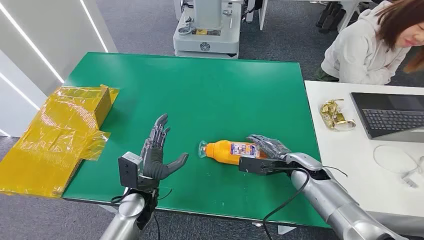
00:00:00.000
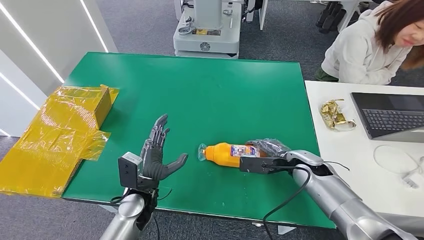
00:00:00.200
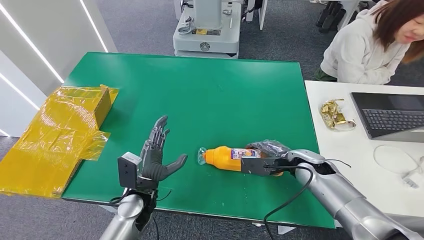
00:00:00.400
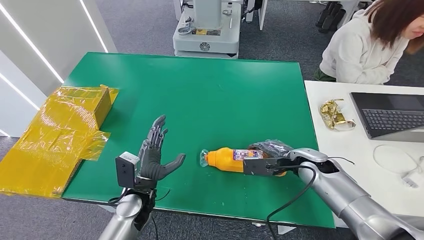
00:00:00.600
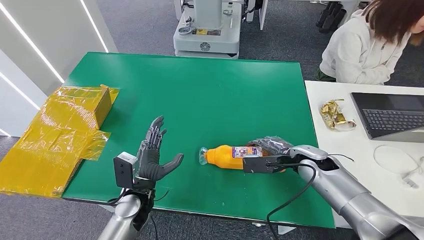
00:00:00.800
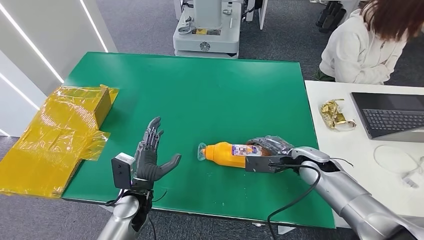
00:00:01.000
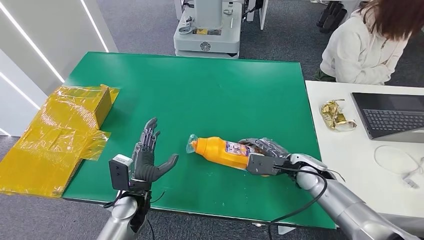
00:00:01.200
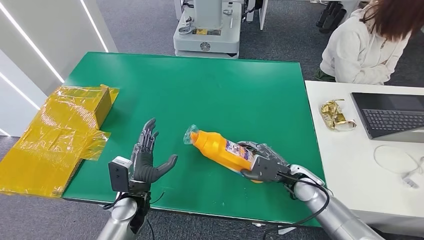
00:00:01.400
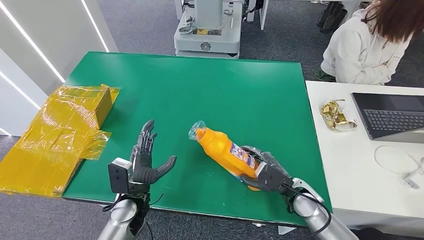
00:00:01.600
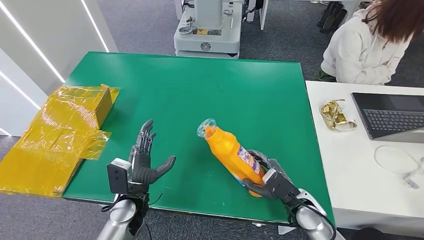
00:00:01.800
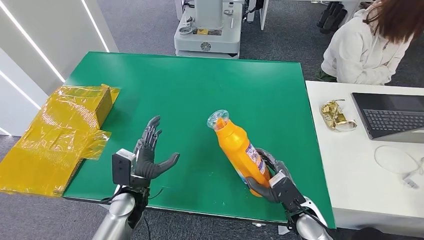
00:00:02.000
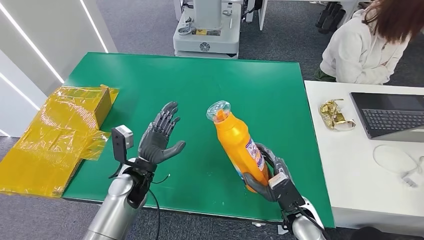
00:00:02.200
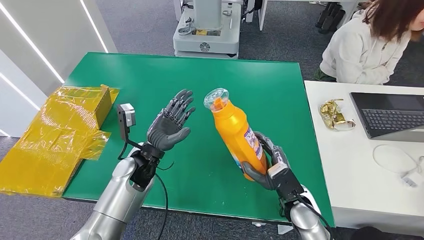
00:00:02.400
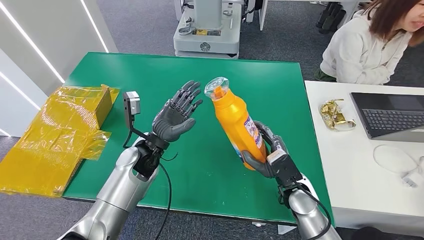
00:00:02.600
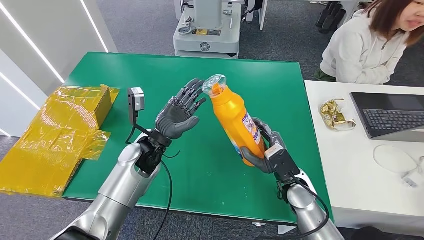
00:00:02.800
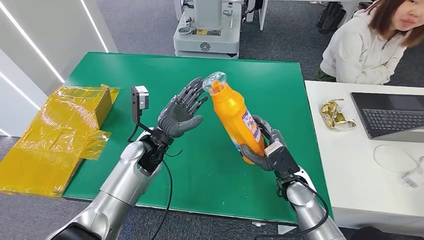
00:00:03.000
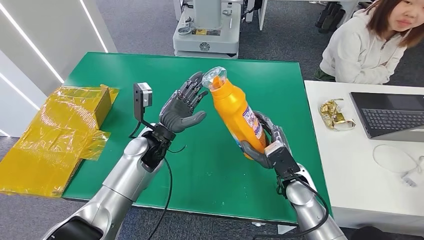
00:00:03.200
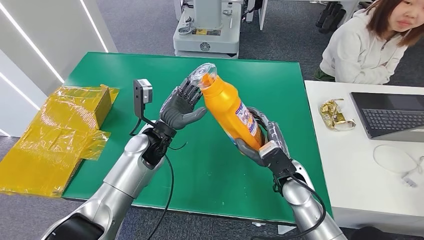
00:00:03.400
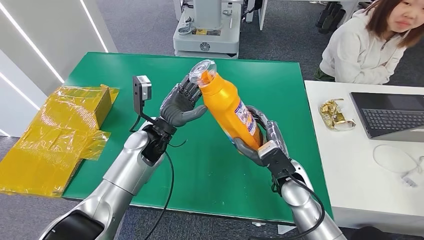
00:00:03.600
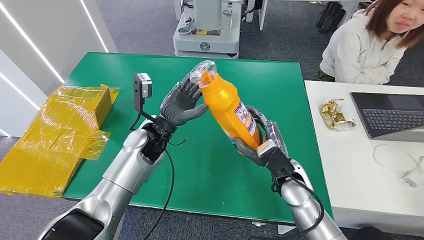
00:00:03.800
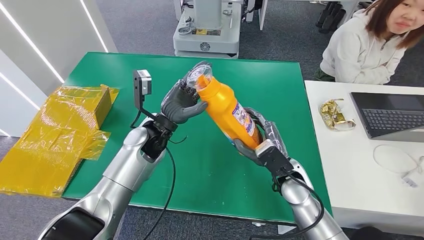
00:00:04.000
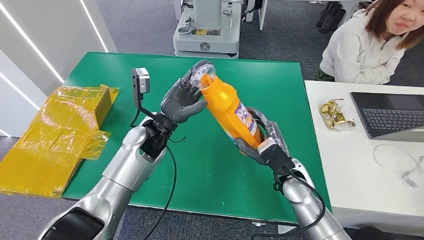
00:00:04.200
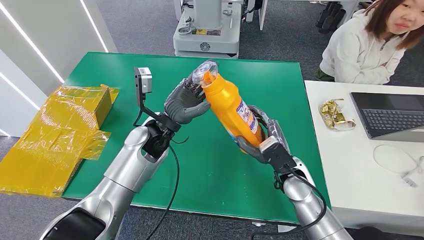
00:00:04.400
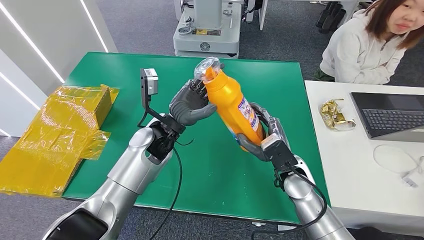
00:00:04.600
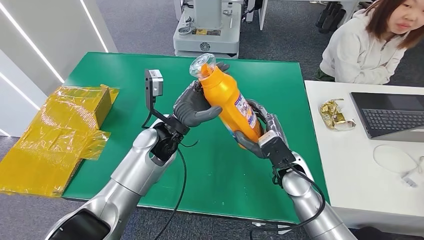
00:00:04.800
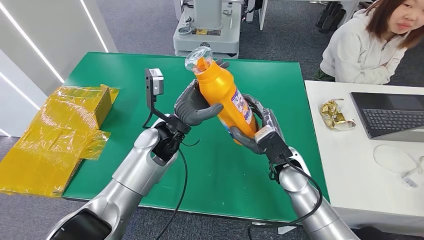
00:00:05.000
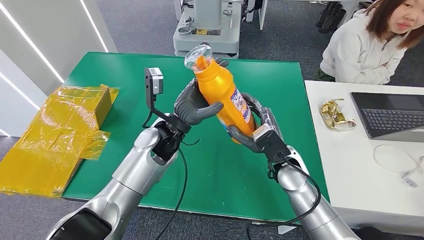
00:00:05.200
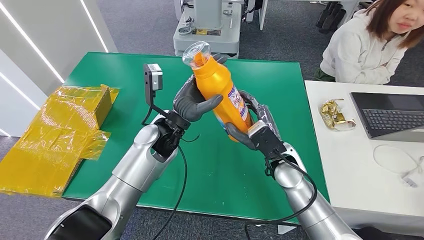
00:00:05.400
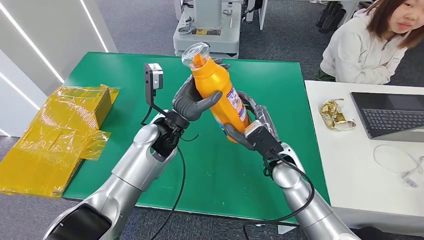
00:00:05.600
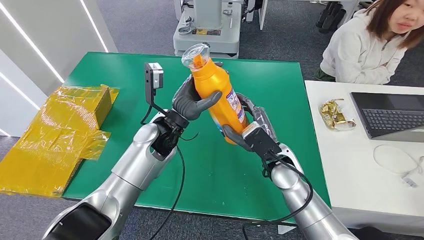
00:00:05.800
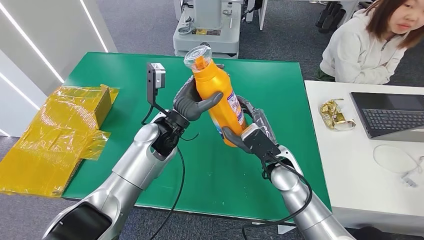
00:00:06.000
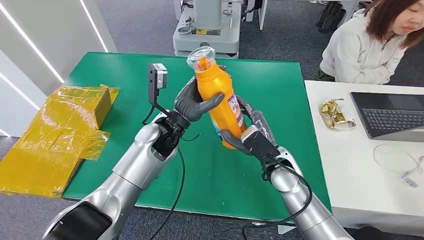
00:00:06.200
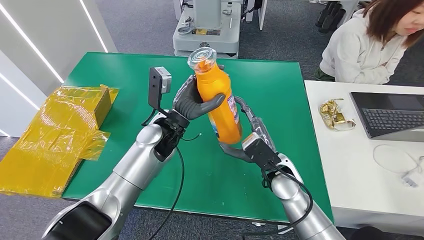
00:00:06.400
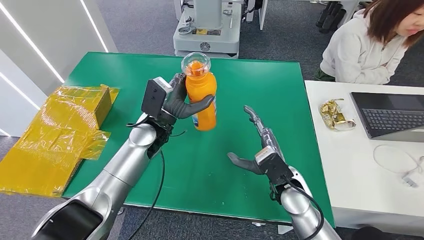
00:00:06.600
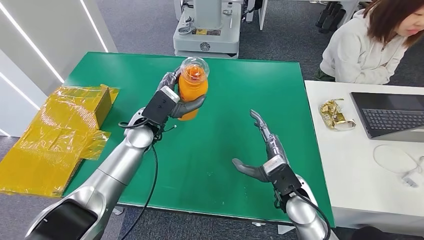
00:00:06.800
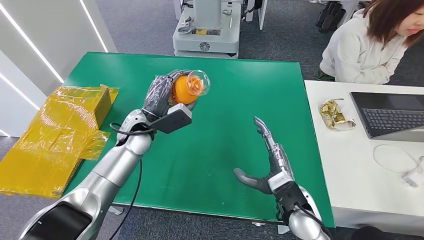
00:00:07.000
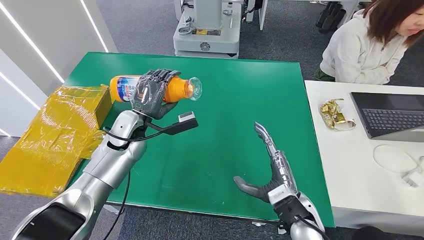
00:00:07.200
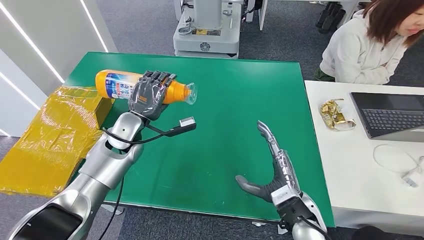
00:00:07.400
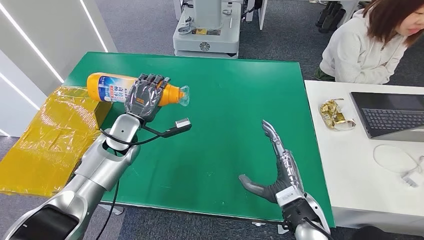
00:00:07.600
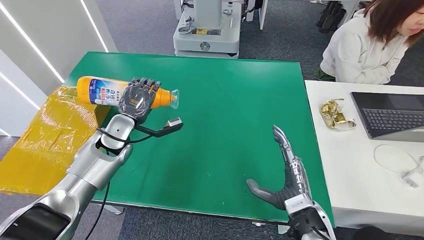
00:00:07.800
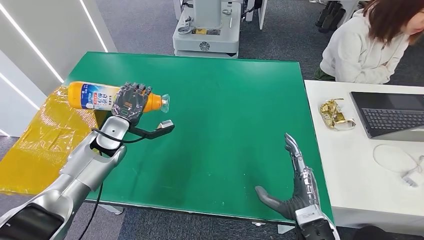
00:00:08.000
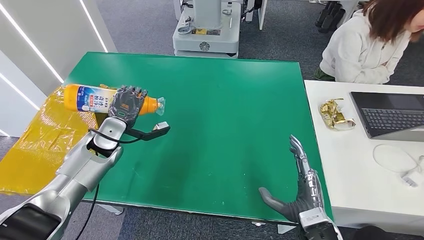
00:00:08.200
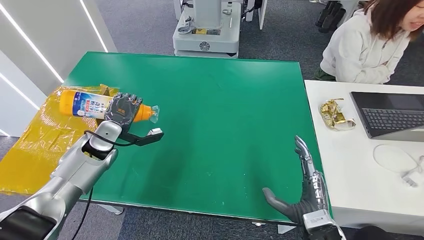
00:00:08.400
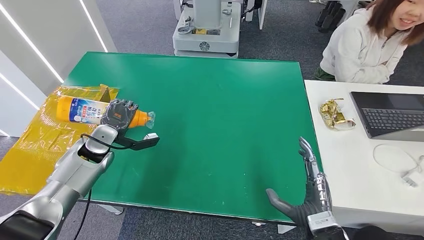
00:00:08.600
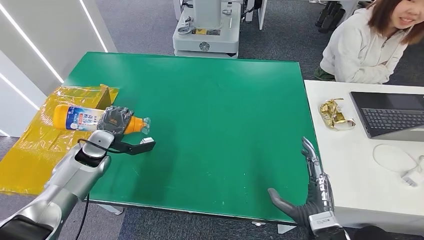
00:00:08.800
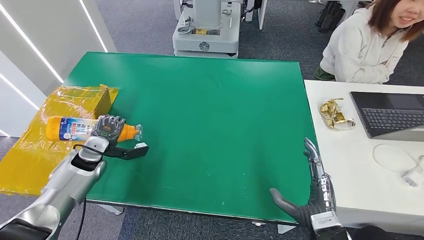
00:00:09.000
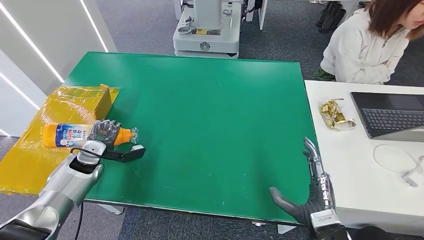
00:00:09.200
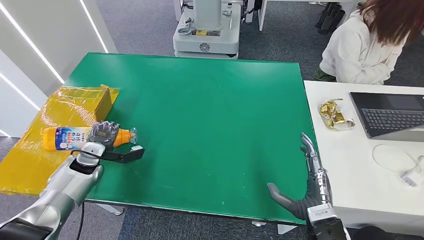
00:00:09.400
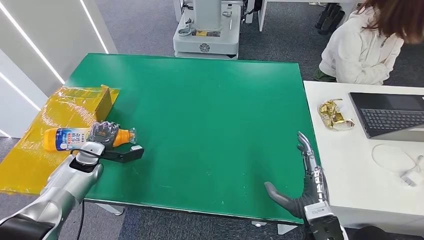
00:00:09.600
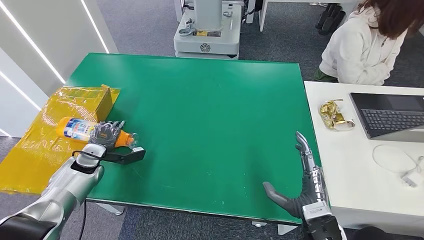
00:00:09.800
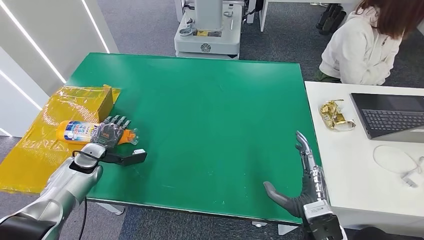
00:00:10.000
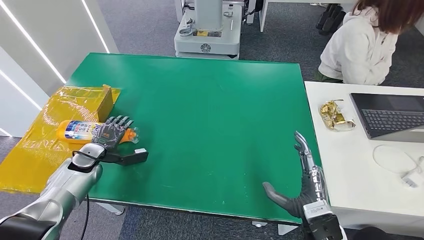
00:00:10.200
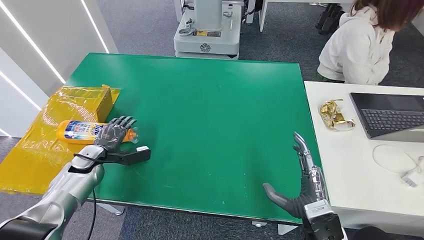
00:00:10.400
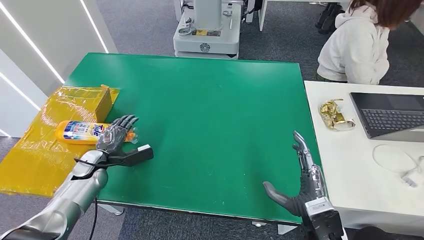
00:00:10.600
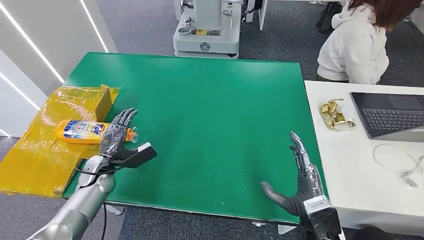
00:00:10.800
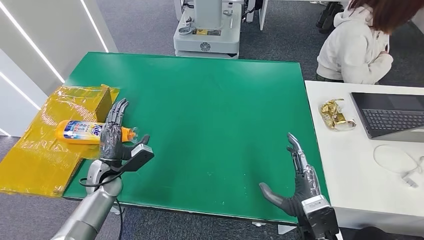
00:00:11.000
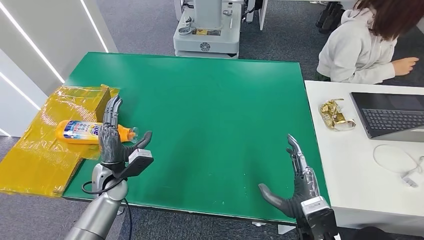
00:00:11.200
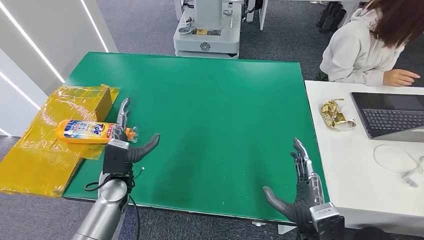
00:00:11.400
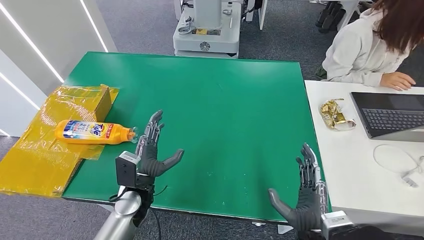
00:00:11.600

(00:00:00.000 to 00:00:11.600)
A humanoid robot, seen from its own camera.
Step, 00:00:00.000 - 00:00:03.000: Pick up the bottle from the table.
Step, 00:00:04.000 - 00:00:11.600: Turn the bottle to the front side.
00:00:01.400 - 00:00:02.800: The left hand travels forward and upward by about 15 cm. Meanwhile the right hand reaches approximately 10 cm backward, then returns.
00:00:02.800 - 00:00:04.400: The left hand changes place by some 5 cm.
00:00:04.400 - 00:00:05.800: The right hand shifts by some 5 cm.
00:00:07.200 - 00:00:08.800: The left hand travels to the left and downward by approximately 15 cm; the right hand heads backward, covering some 5 cm.
00:00:08.800 - 00:00:10.200: The left hand moves downward, about 5 cm.
00:00:10.200 - 00:00:11.600: The left hand shifts approximately 25 cm to the right and backward.
